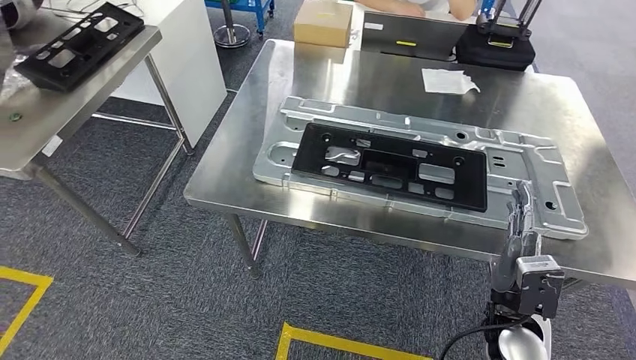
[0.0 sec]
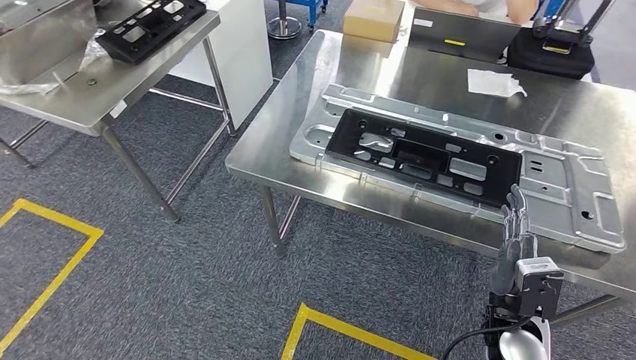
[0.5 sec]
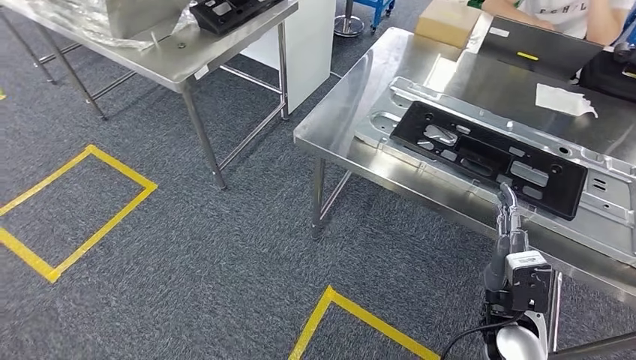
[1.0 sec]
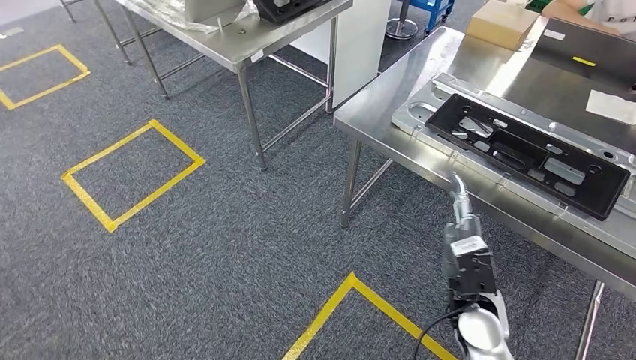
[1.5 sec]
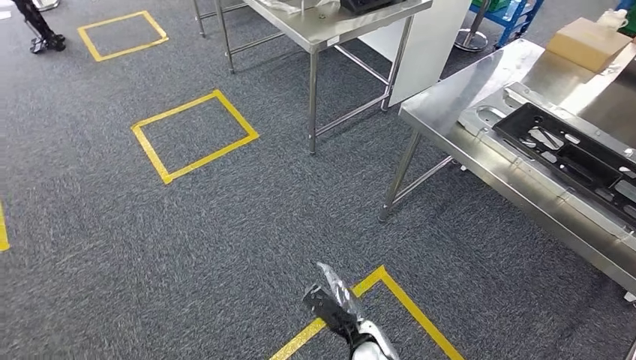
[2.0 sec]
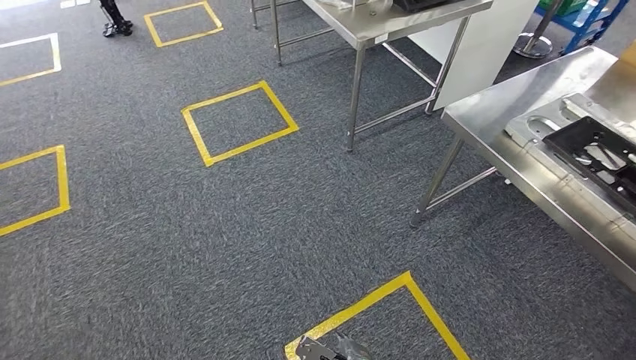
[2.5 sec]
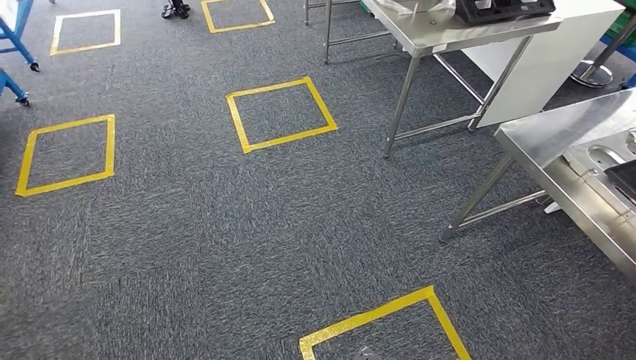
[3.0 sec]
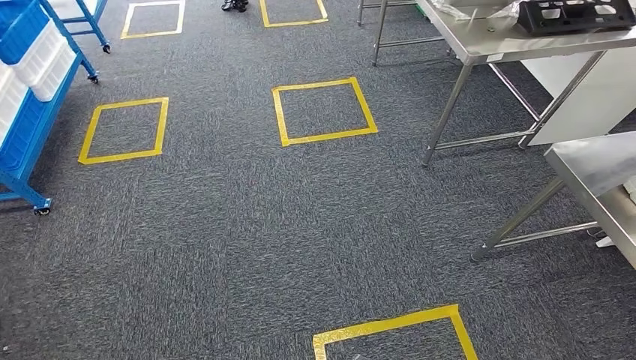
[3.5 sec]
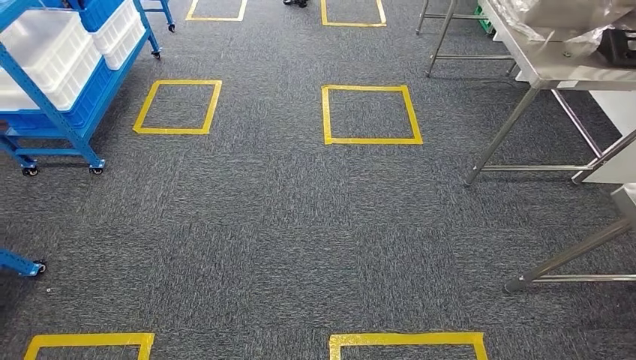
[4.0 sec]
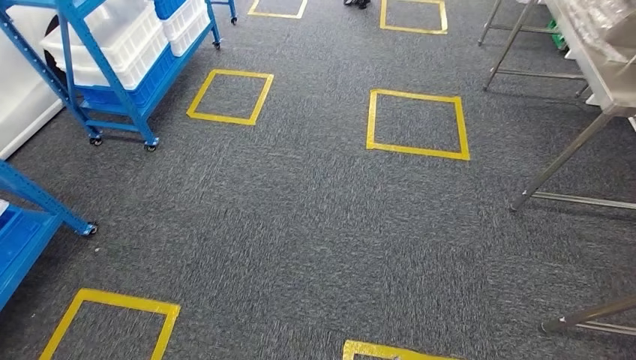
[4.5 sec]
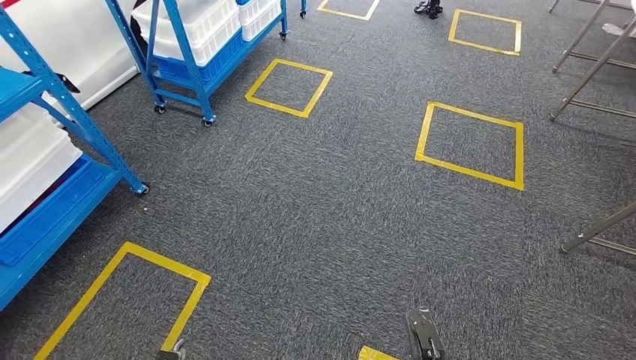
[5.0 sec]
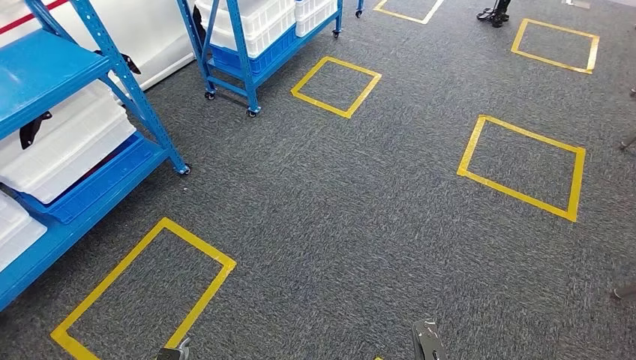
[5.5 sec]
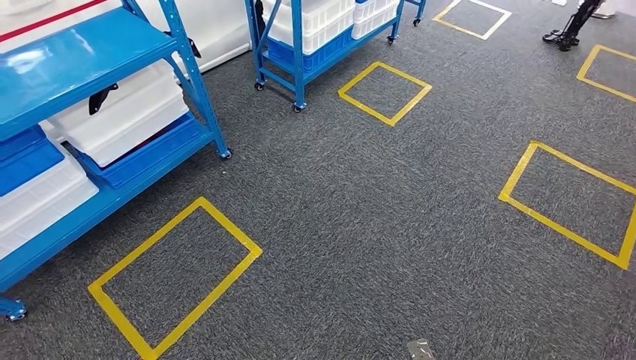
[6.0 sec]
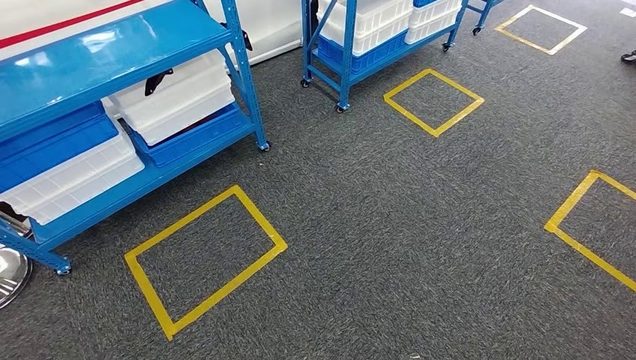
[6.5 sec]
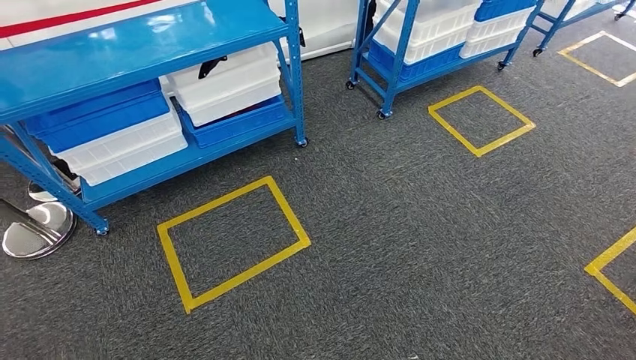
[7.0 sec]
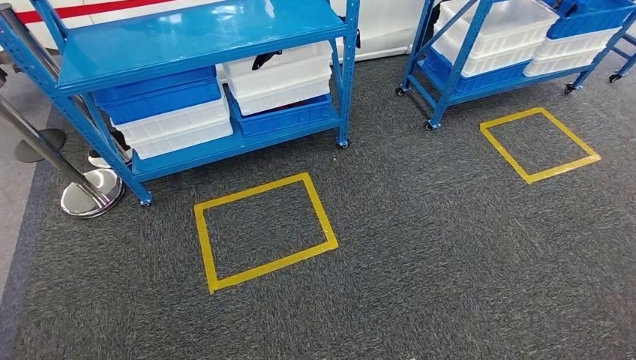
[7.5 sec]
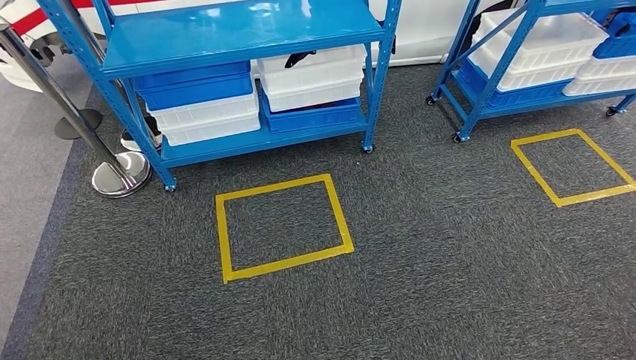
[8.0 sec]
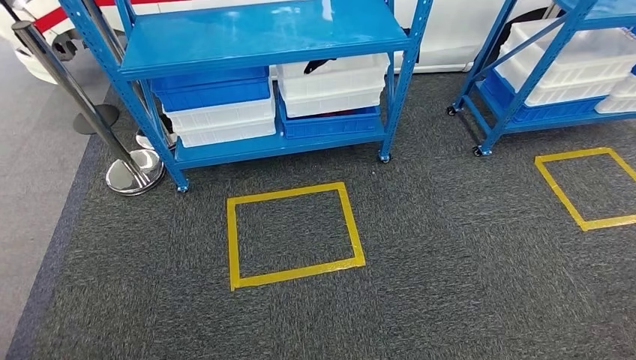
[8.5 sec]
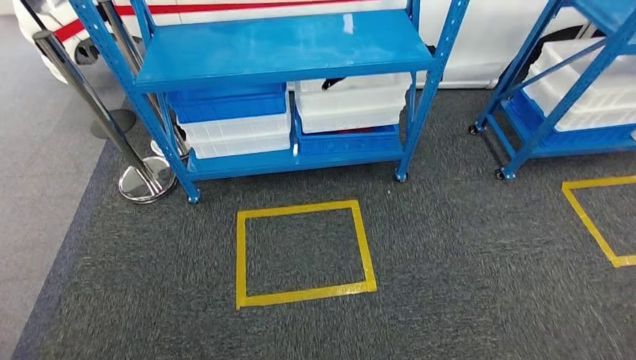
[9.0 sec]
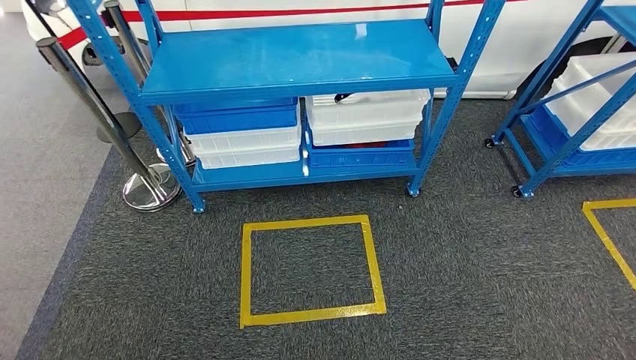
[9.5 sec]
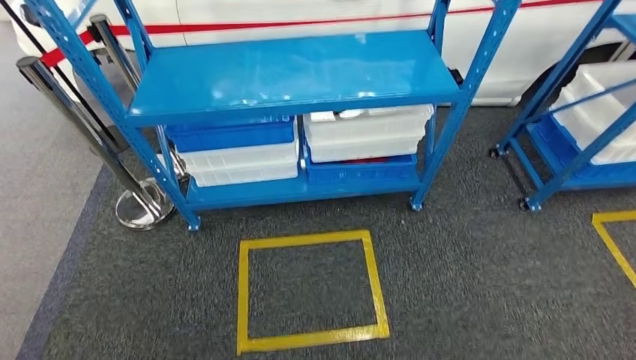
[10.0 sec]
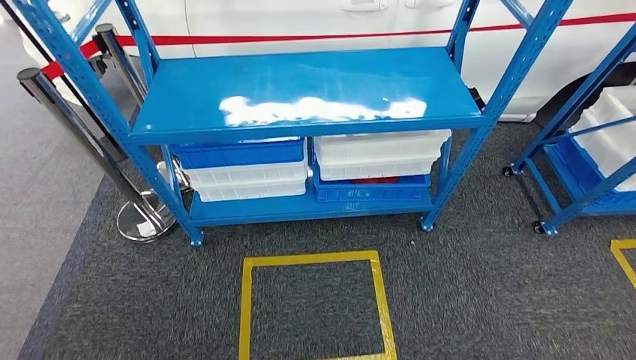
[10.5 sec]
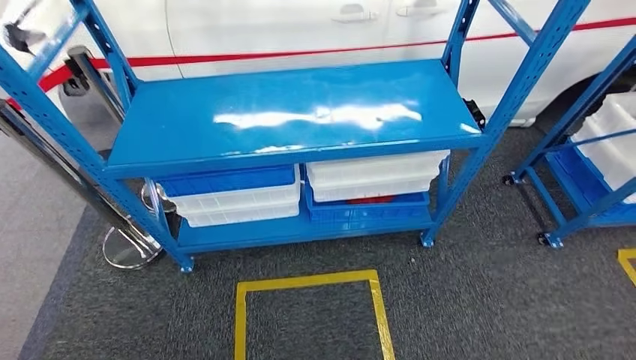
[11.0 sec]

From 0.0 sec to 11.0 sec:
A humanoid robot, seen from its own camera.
Step, from 2.0 sec to 11.0 sec: Move to the initial position of the shelf.
